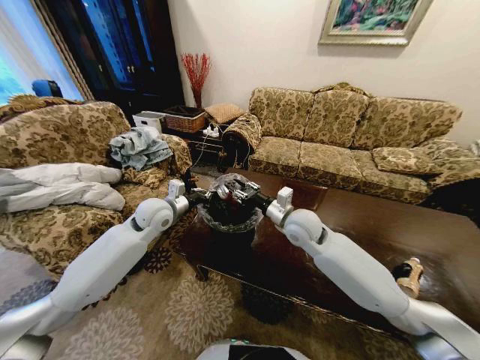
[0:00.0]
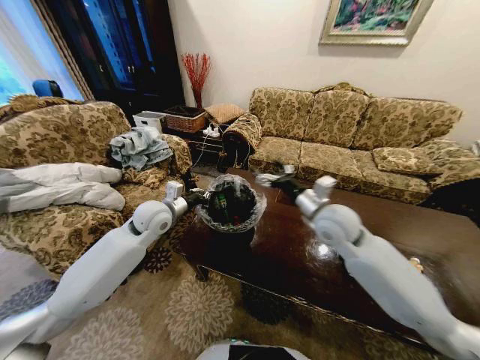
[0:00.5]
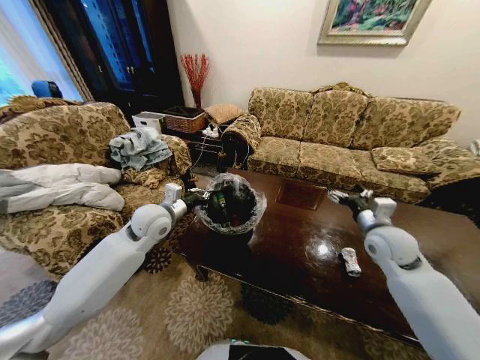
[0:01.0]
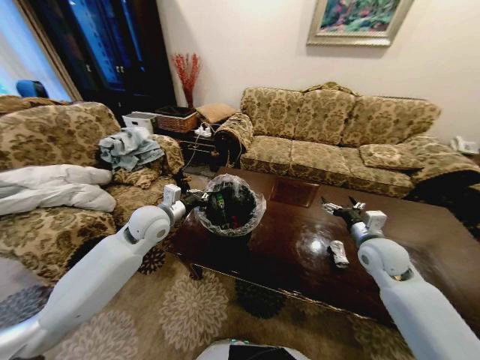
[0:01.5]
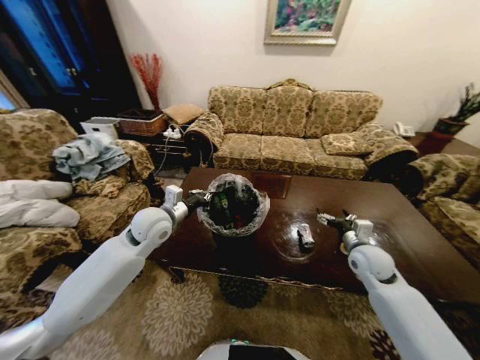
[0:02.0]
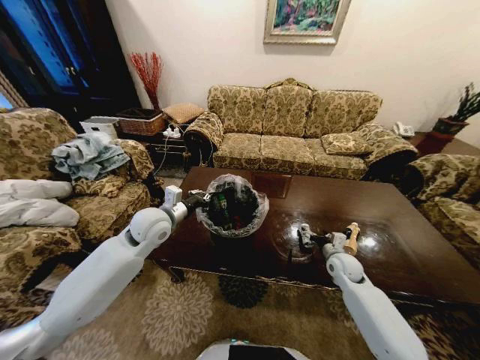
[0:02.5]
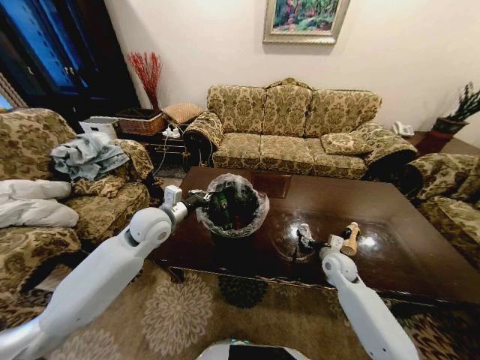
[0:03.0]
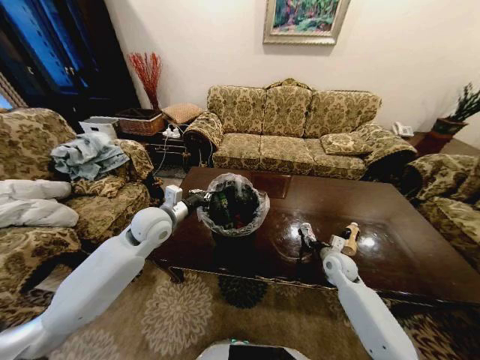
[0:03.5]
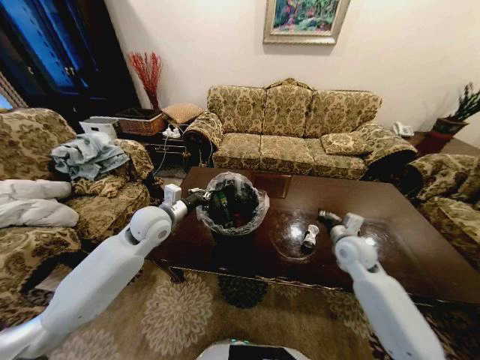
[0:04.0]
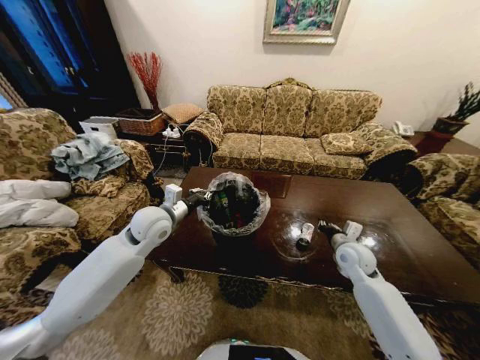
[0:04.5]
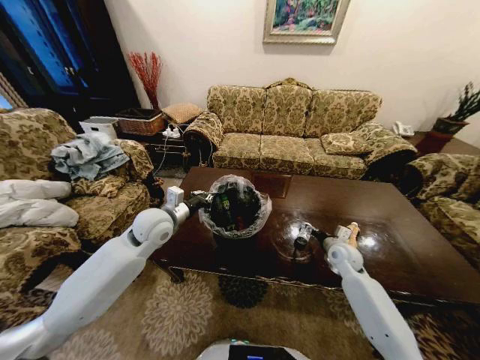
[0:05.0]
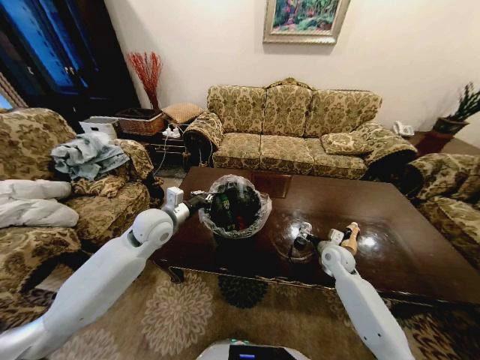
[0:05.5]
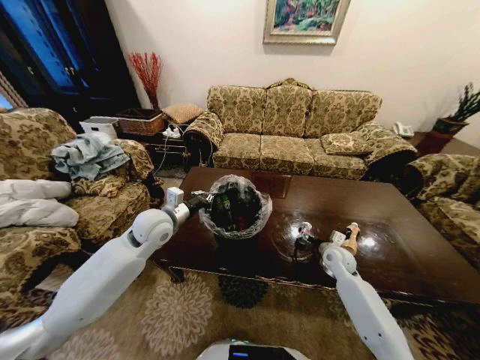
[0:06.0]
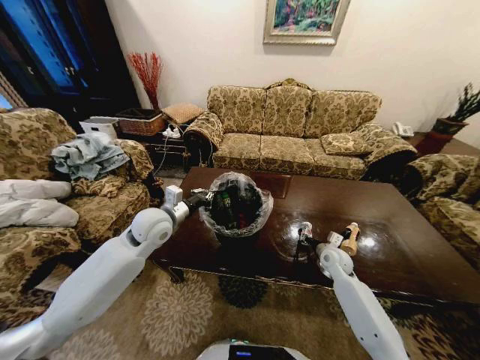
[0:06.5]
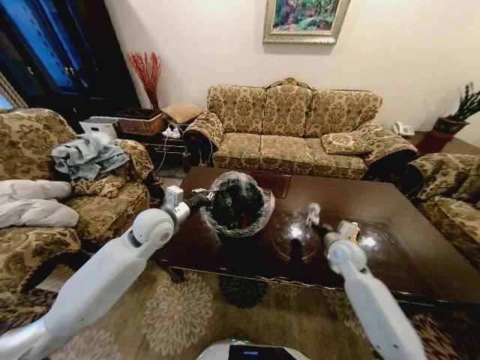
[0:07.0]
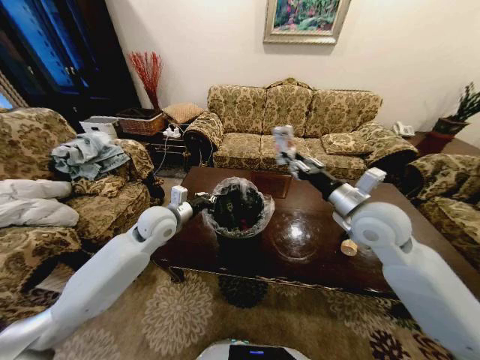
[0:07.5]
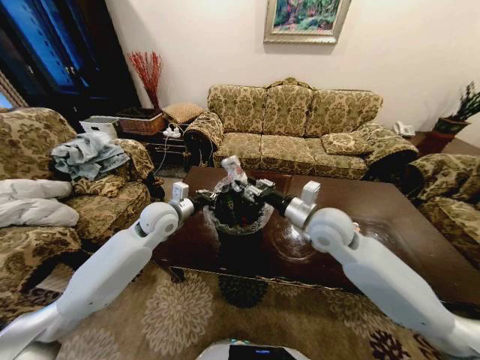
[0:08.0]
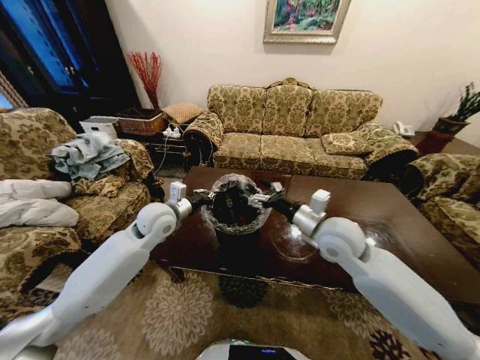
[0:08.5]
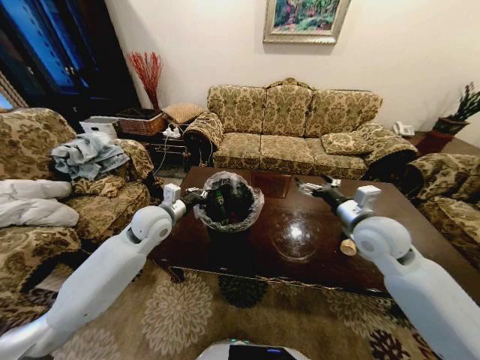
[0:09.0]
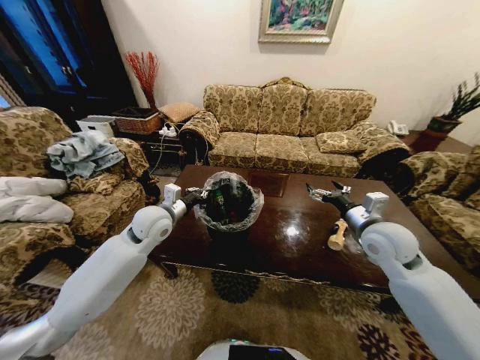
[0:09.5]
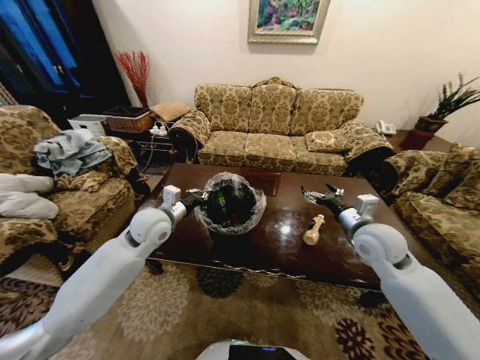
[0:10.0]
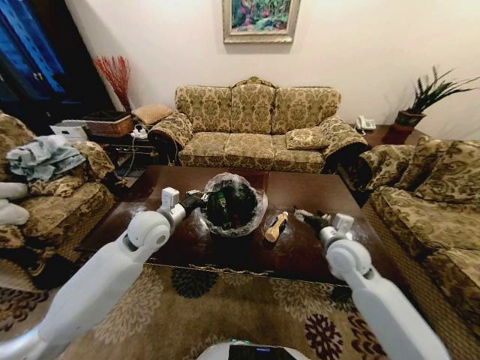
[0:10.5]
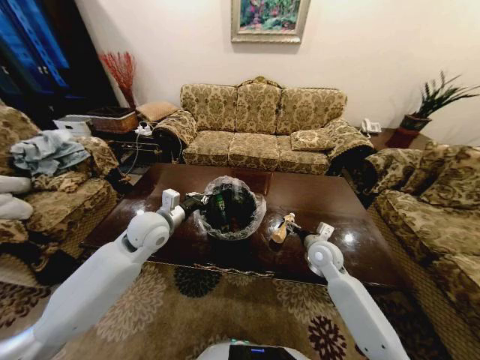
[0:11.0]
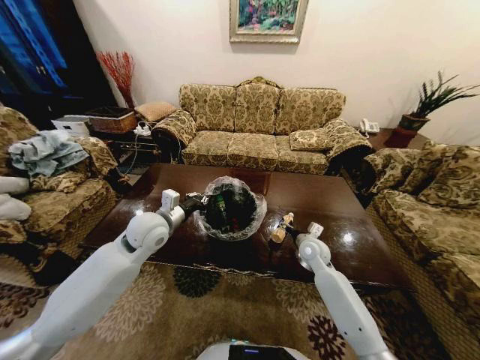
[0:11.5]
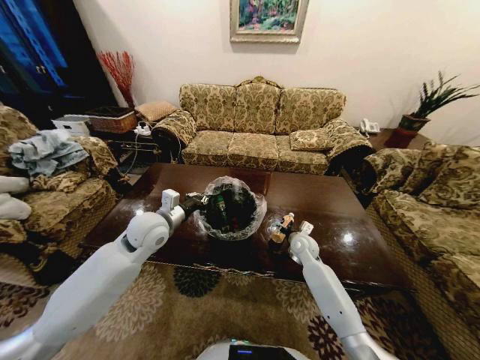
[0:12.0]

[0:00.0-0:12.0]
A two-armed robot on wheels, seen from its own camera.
Task of the whole recording: Move to the front of the table and place the trash on the table into the trash bin.
0:00.0 to 0:02.0: The right gripper shifts some 25 cm to the right and downward, and opens up.
0:02.0 to 0:04.0: The right gripper goes downward and returns, roughly 10 cm each way, and closes its fingers.
0:04.0 to 0:06.0: The right gripper is displaced downward by some 10 cm, and opens up.
0:06.0 to 0:08.0: The right gripper goes about 30 cm upward and to the left, and closes.
0:08.0 to 0:10.0: The right gripper goes approximately 15 cm to the right, and opens its fingers.
0:10.0 to 0:12.0: The right gripper is displaced downward, forward and to the left by about 25 cm.

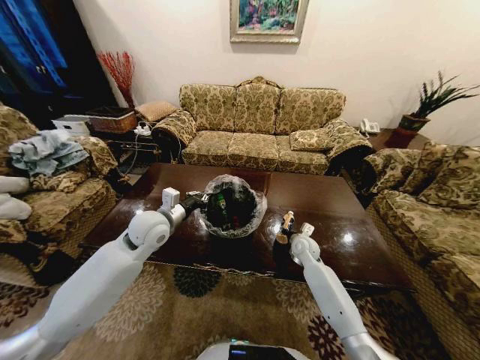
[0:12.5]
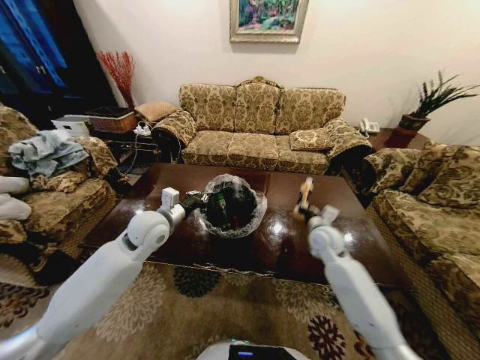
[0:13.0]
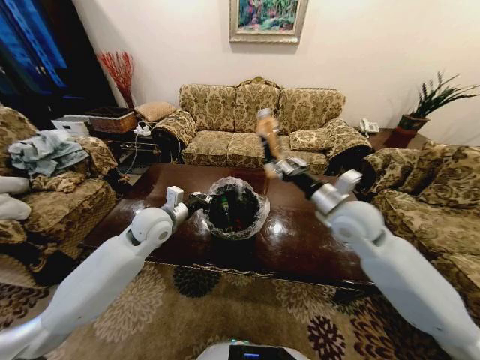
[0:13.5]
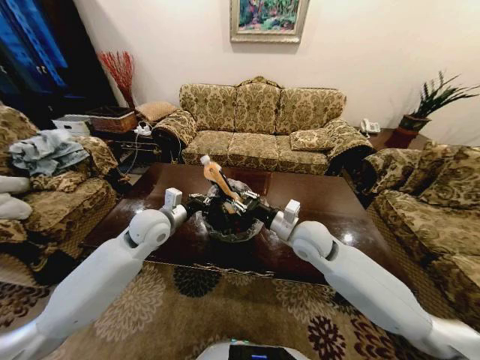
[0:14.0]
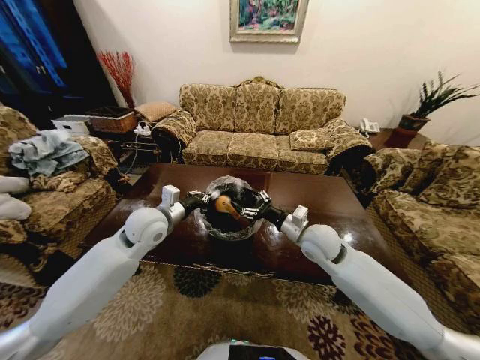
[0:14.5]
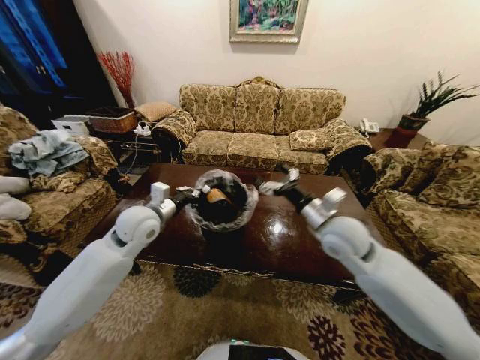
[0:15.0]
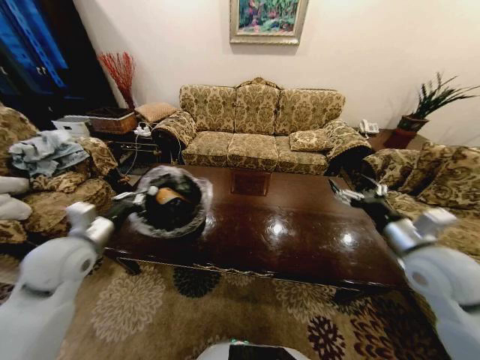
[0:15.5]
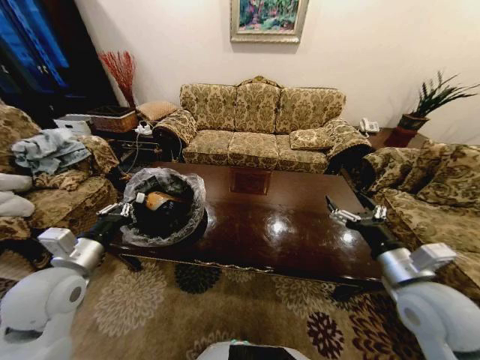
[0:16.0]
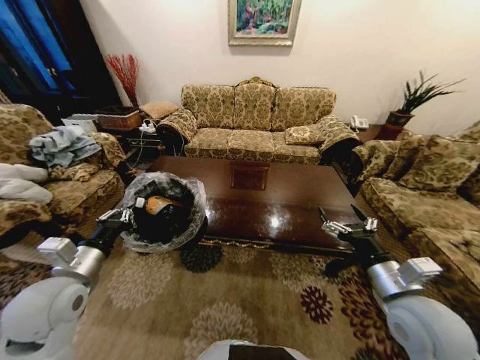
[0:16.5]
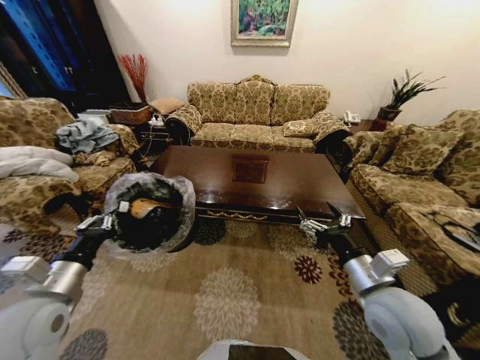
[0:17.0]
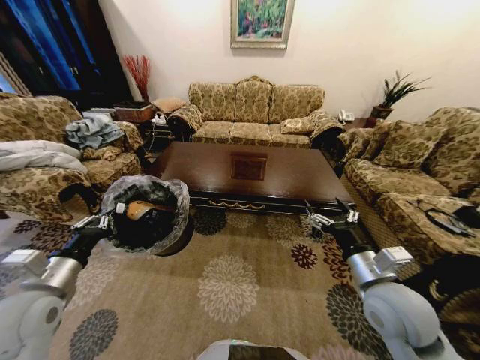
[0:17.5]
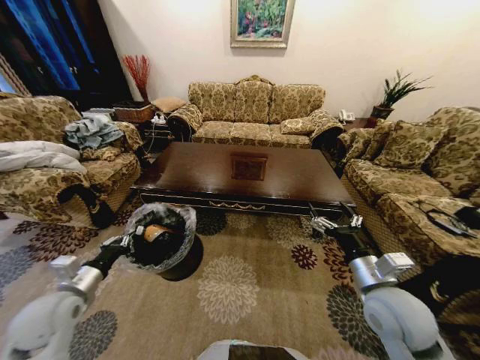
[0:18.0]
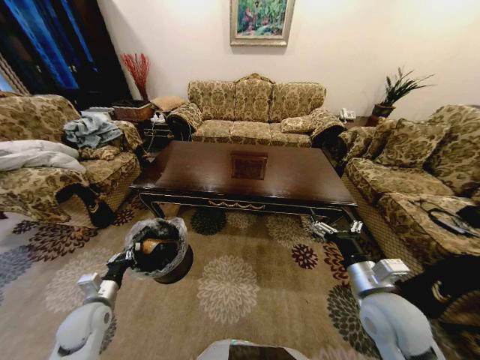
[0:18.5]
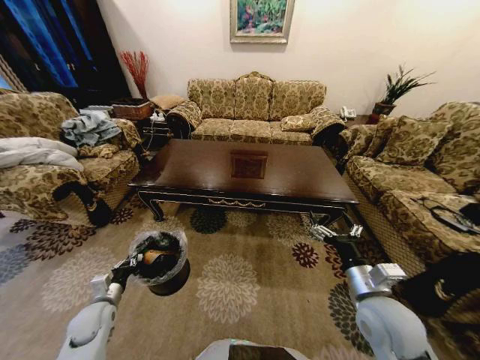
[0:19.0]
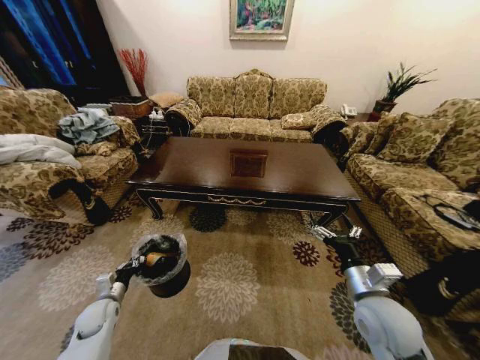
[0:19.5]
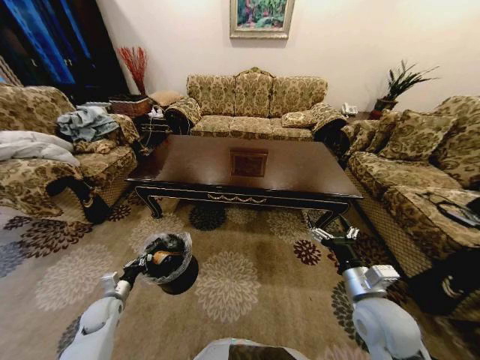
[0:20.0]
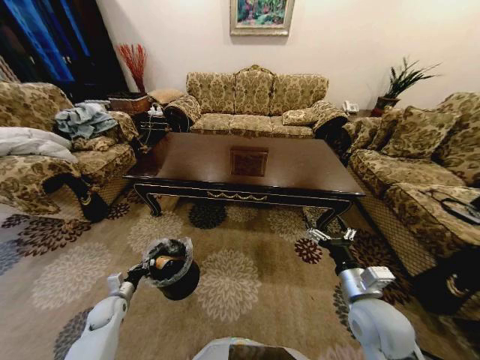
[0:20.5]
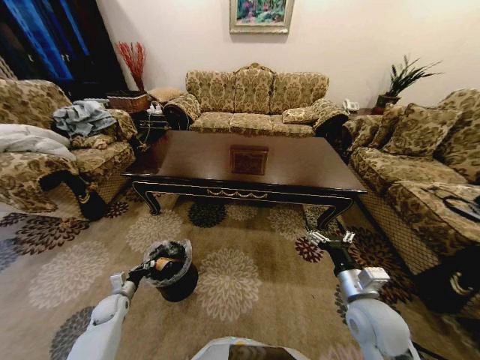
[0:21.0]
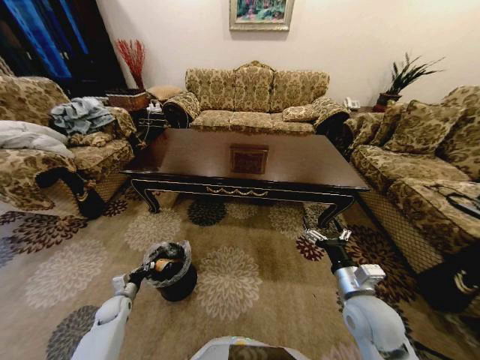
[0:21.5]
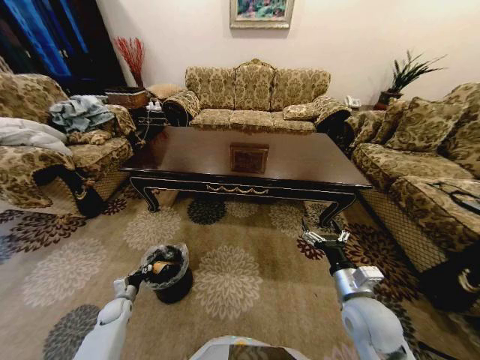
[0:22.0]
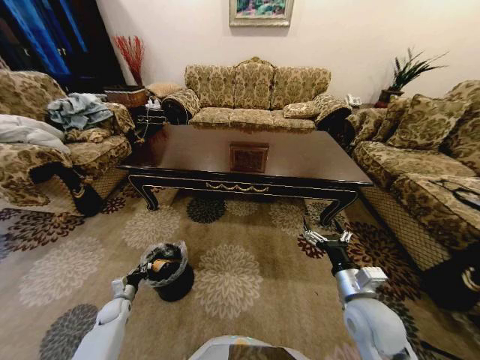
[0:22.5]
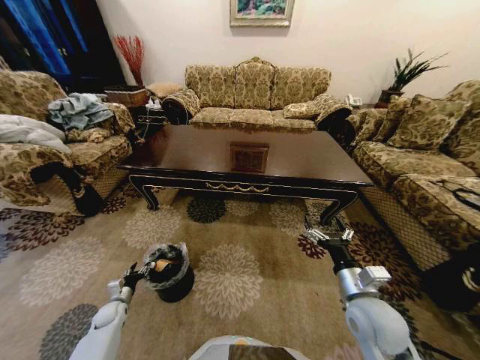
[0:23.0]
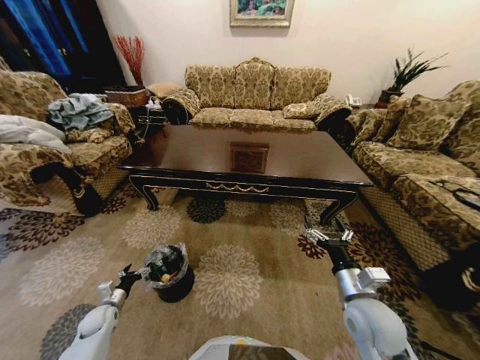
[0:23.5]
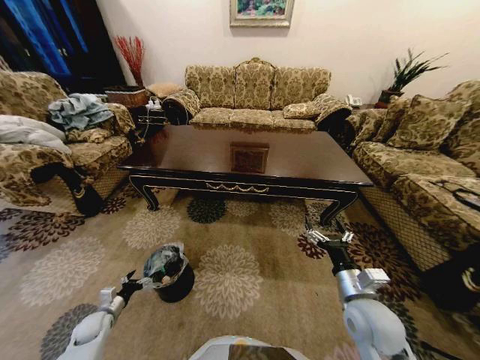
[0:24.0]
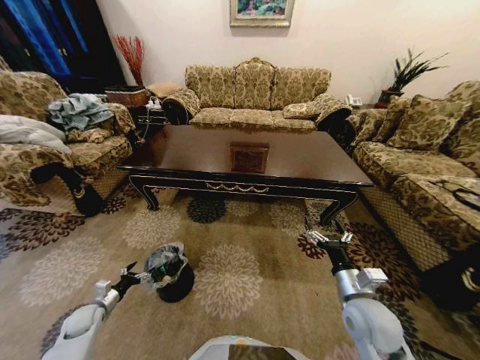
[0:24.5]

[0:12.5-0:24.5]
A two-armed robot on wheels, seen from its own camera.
Task of the whole recording: Move to the front of the table and place the trash on the table into the trash bin.
0:12.5 to 0:14.5: The right gripper shifts approximately 20 cm upward and backward, and closes and opens again.
0:14.5 to 0:16.5: The right gripper shifts some 20 cm backward and to the right; the left gripper is displaced backward and to the left by some 20 cm.
0:16.5 to 0:18.5: The left gripper shifts some 20 cm downward.
0:18.5 to 0:20.5: The left gripper travels downward by about 10 cm.
0:20.5 to 0:22.5: The left gripper moves downward, roughly 5 cm.
0:22.5 to 0:24.5: The left gripper travels upward by about 10 cm, and opens up.

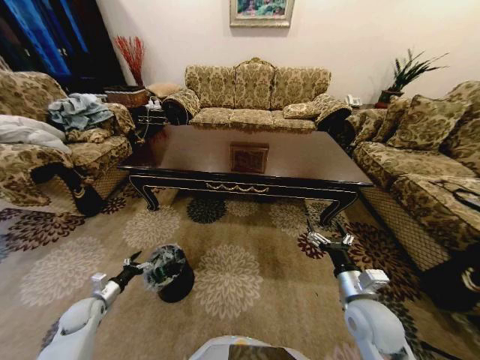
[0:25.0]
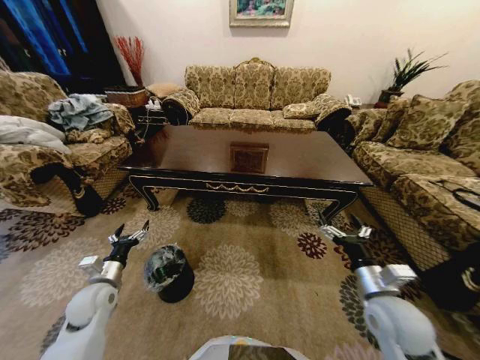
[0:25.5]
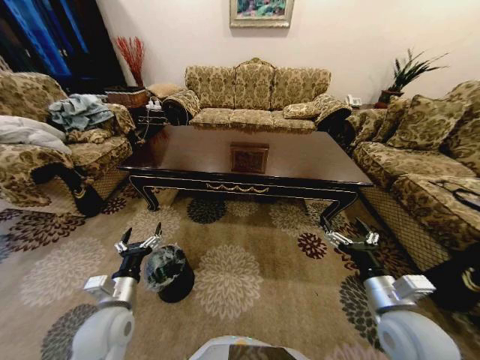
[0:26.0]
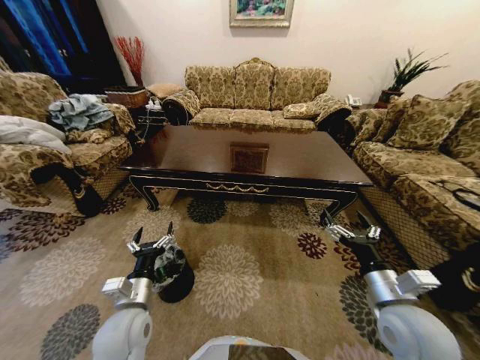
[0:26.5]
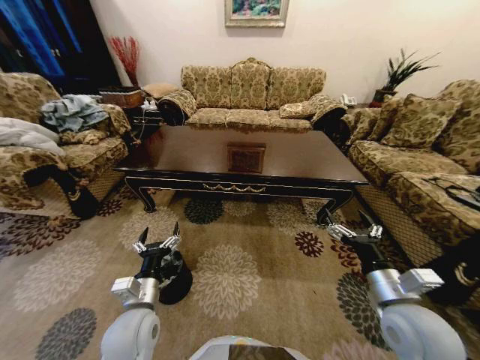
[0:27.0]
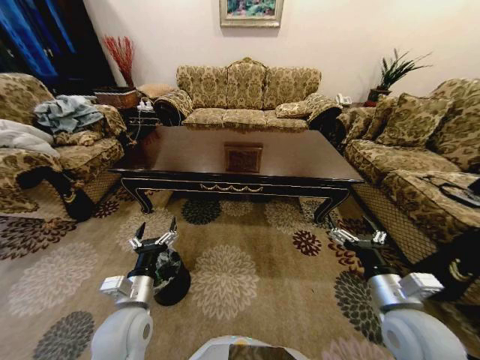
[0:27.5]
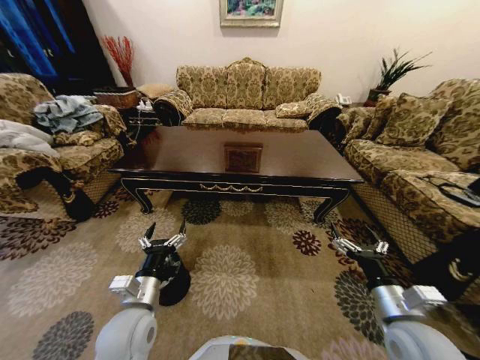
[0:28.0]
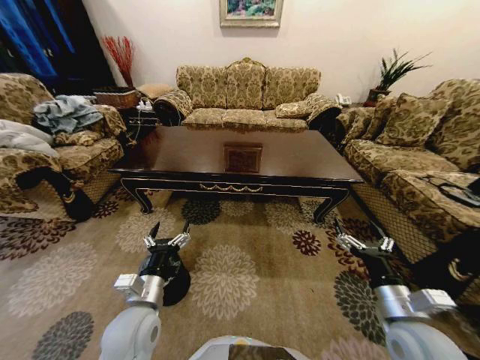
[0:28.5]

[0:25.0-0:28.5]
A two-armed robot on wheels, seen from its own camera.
Task of the whole recording: Move to the front of the table and place the trash on the table into the trash bin.
0:25.0 to 0:27.0: The left gripper shifts approximately 30 cm to the right and upward, while the right gripper travels upward by about 5 cm.
